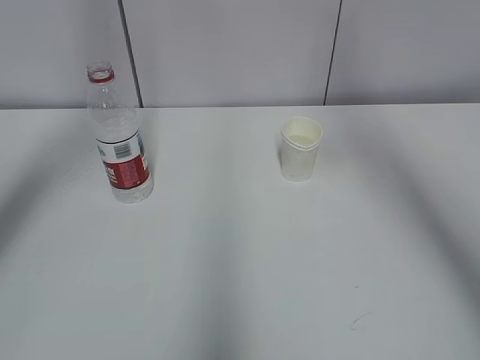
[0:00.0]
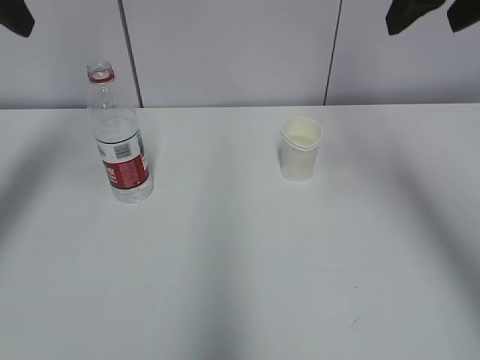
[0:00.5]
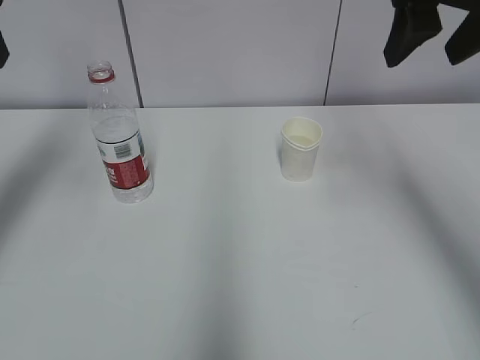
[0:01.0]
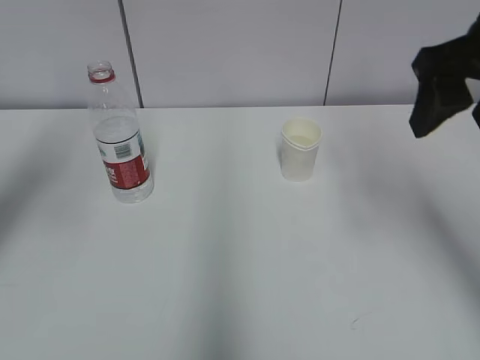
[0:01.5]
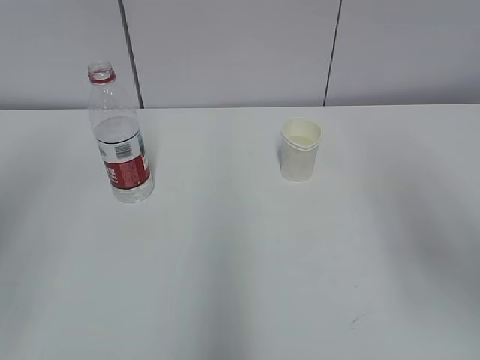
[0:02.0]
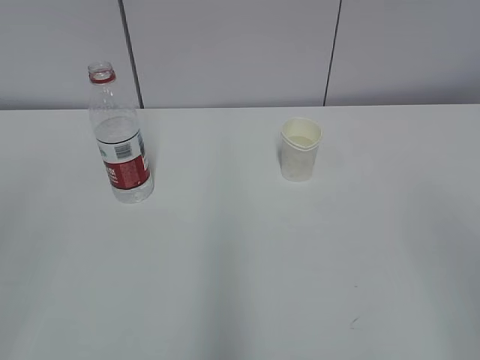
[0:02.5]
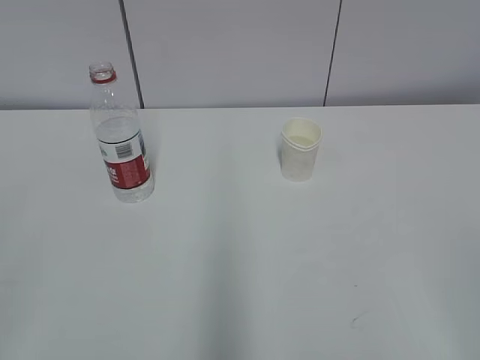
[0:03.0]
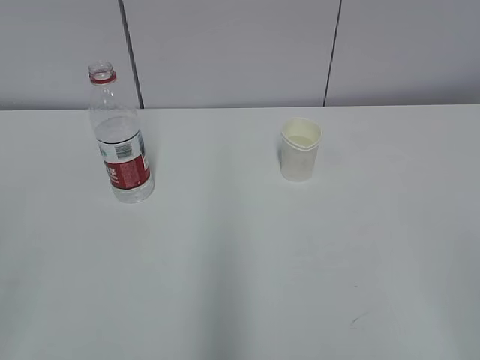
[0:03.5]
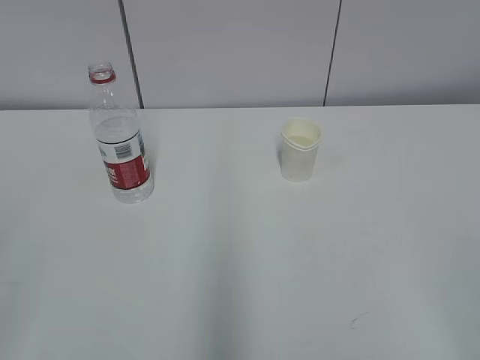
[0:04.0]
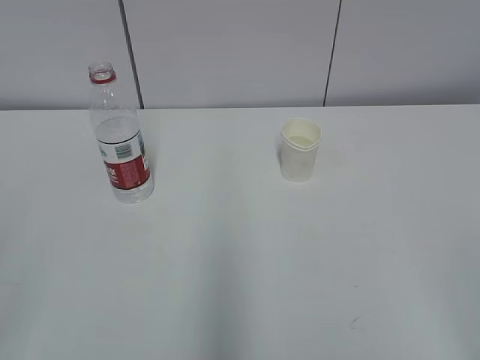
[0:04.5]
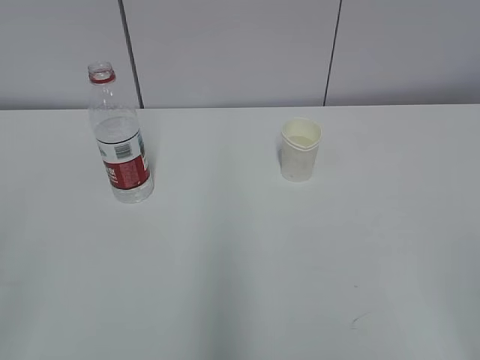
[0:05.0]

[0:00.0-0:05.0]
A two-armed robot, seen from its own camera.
0:00.0 to 0:02.5: The grippers both shift backward by about 30 cm.

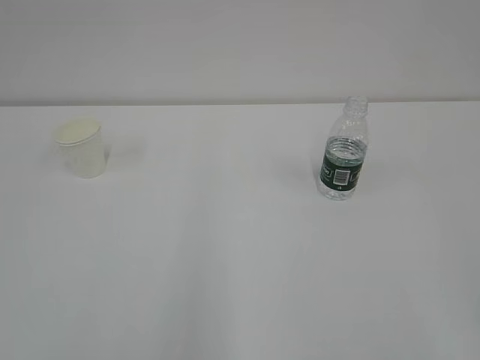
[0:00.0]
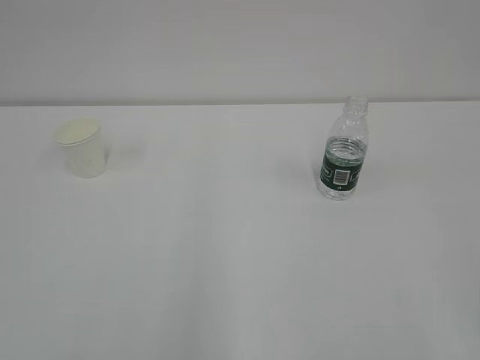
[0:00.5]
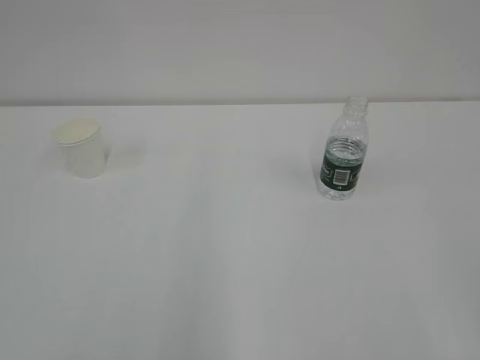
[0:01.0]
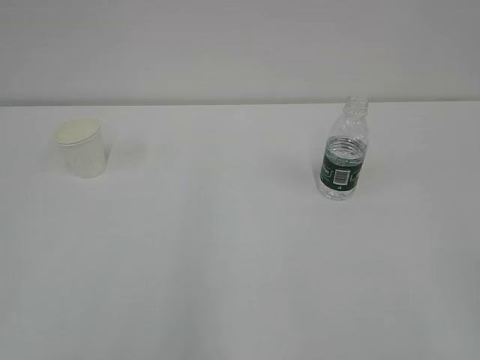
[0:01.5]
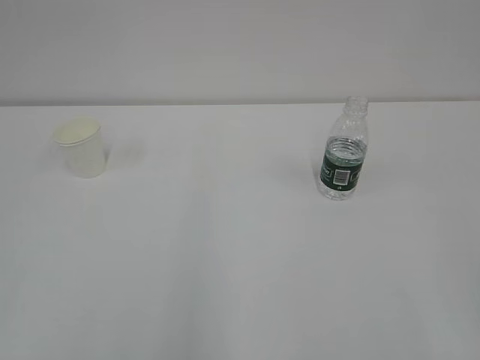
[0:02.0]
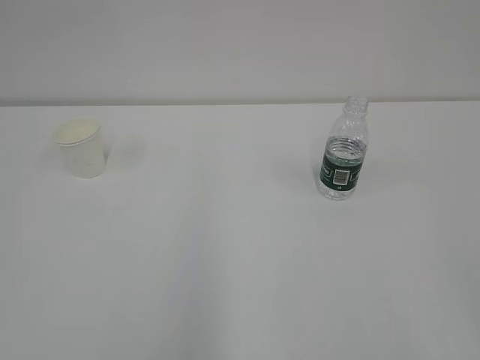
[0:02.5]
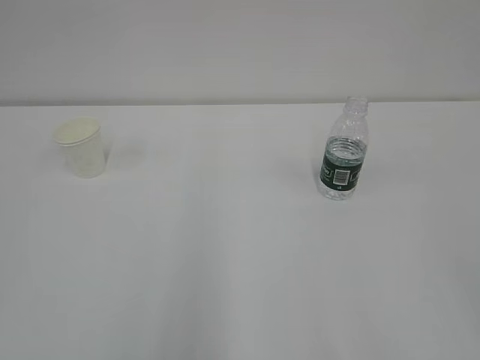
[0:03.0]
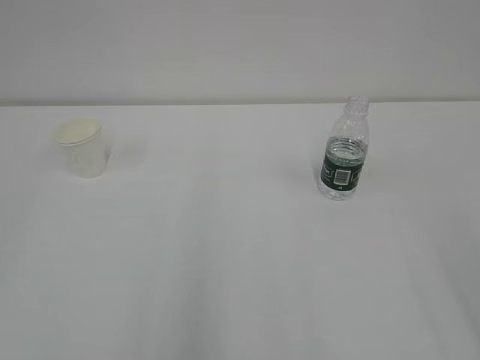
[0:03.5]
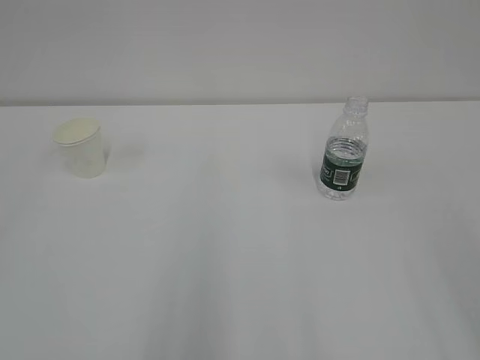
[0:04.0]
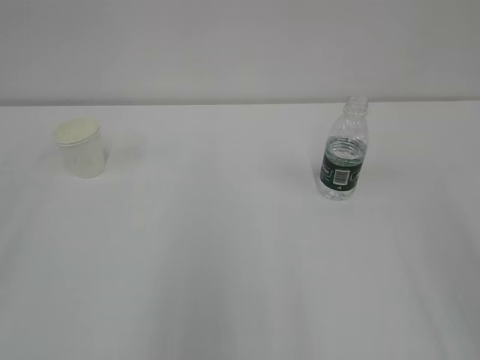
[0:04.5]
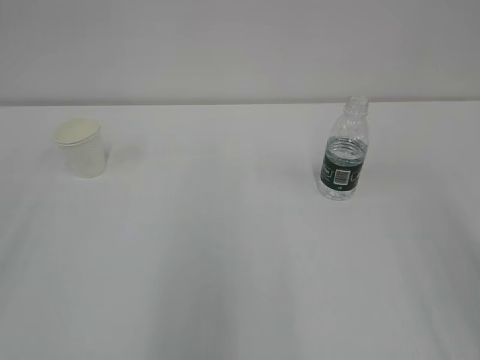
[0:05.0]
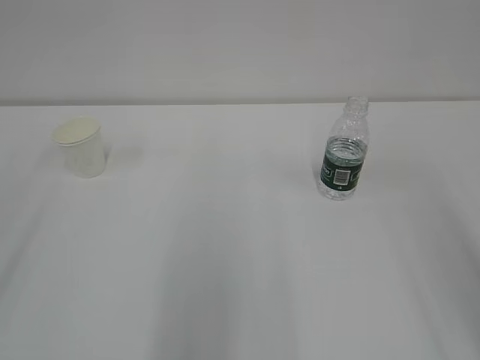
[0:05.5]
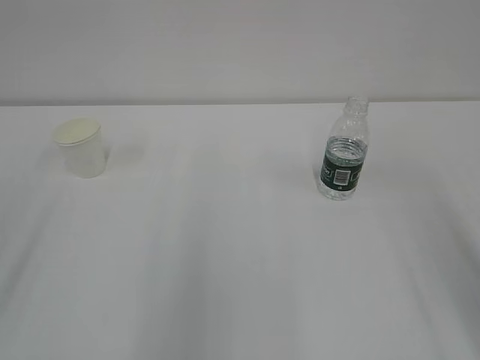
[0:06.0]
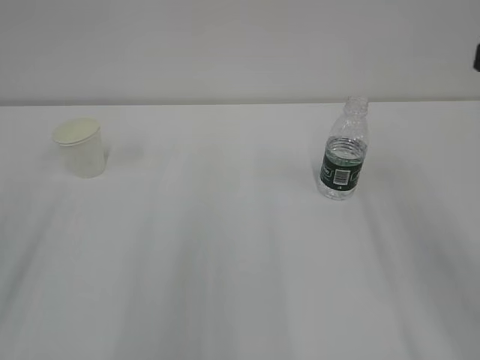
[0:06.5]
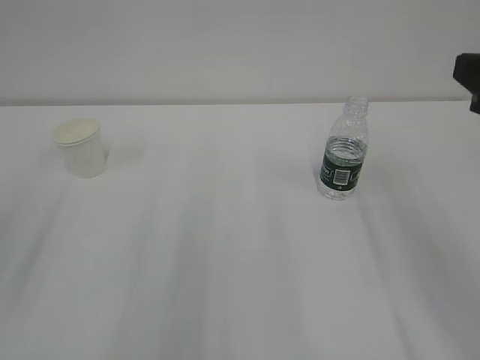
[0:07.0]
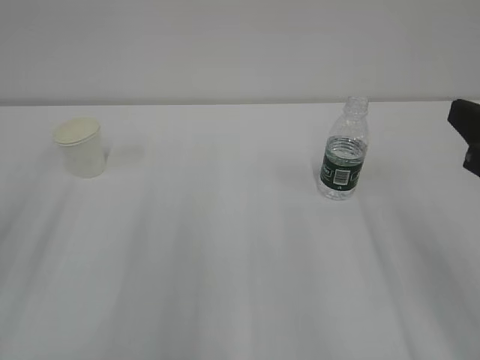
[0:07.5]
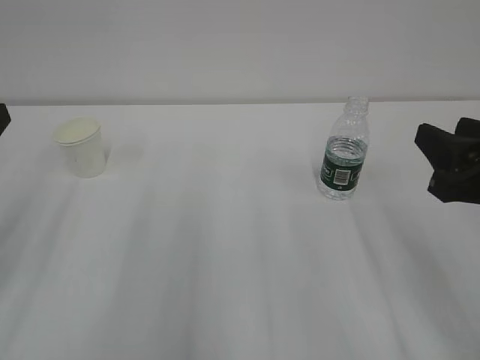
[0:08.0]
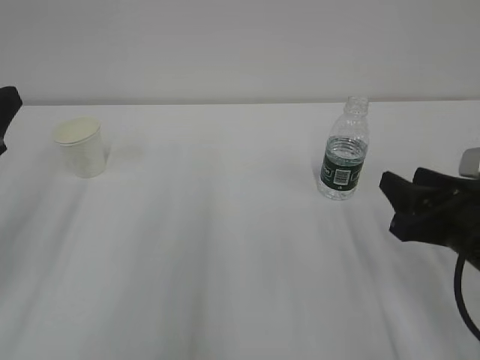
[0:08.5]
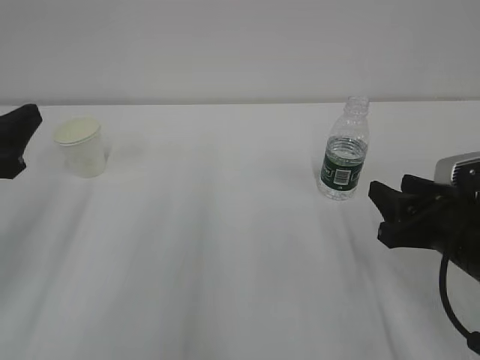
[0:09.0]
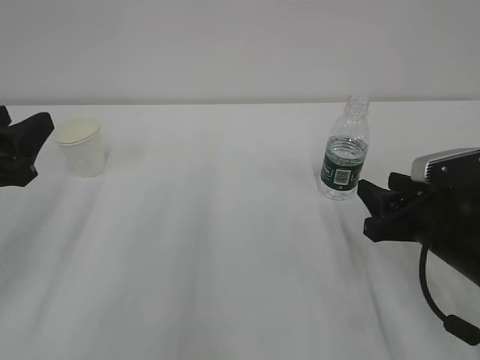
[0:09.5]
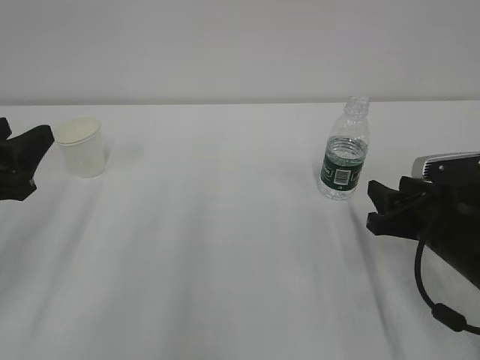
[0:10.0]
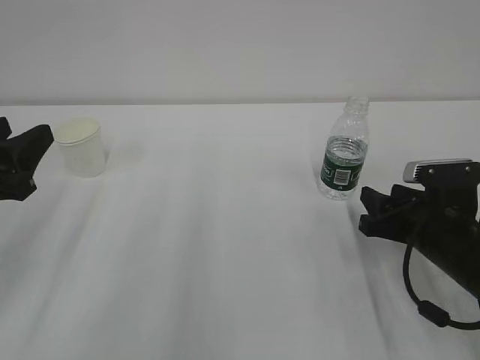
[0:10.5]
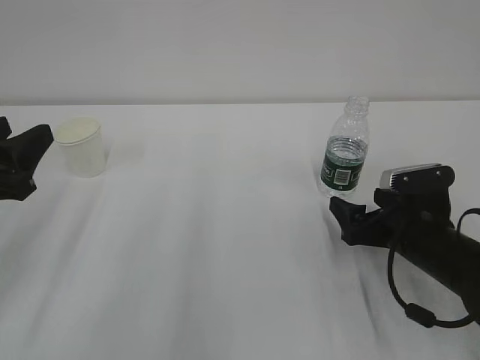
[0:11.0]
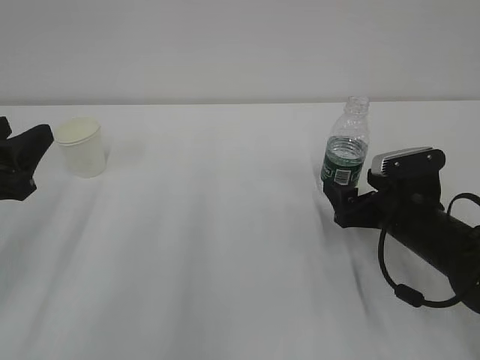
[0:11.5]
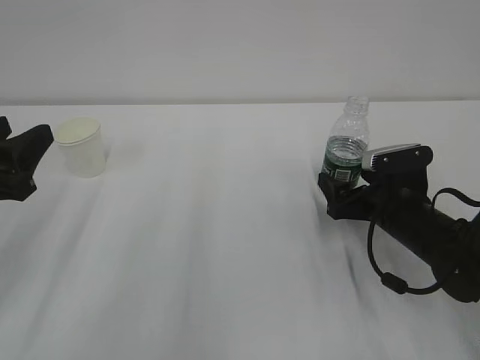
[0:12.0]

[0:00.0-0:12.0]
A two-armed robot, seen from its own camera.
0:06.0 to 0:08.0: The right gripper goes about 15 cm downward and forward.
0:08.0 to 0:10.0: The right gripper moves downward and forward, roughly 15 cm.
0:10.0 to 0:12.0: The right gripper heads forward, covering roughly 5 cm, and opens.

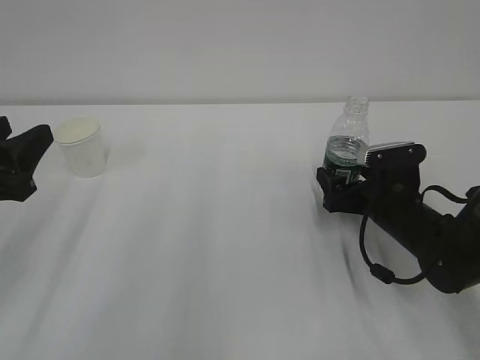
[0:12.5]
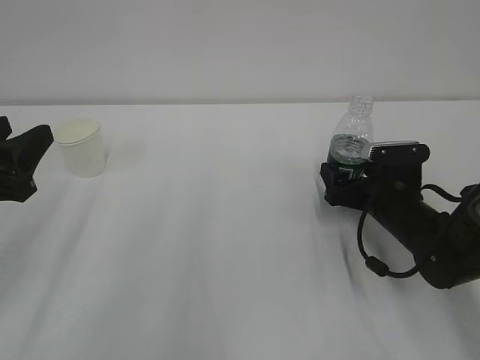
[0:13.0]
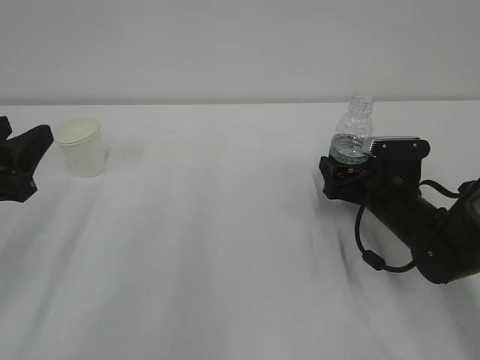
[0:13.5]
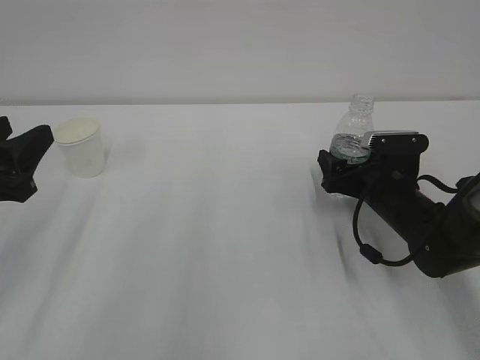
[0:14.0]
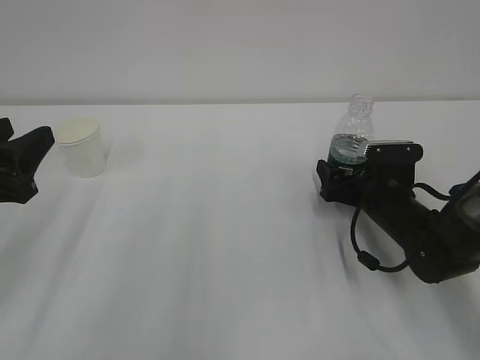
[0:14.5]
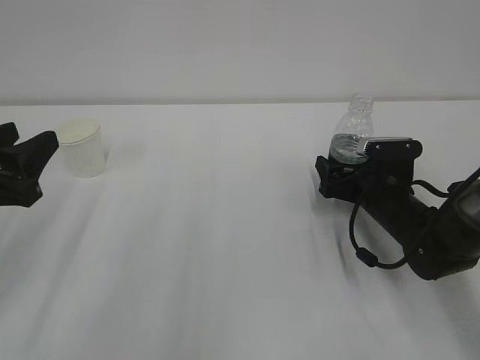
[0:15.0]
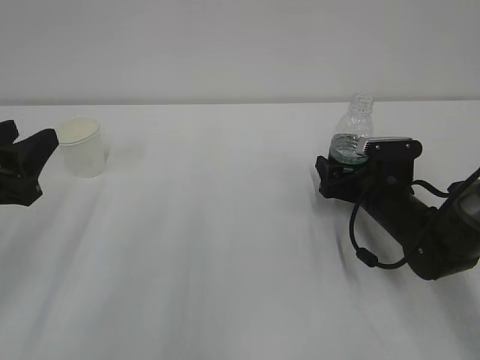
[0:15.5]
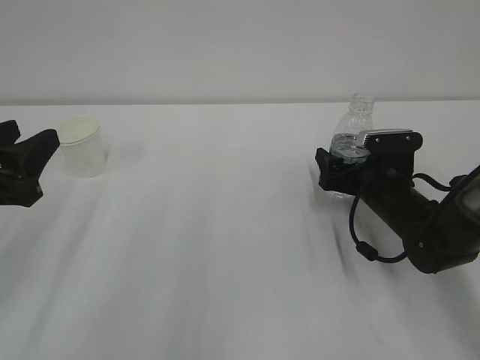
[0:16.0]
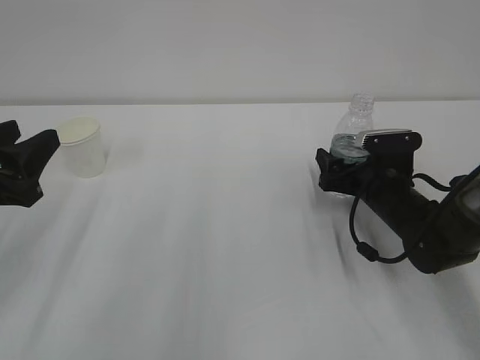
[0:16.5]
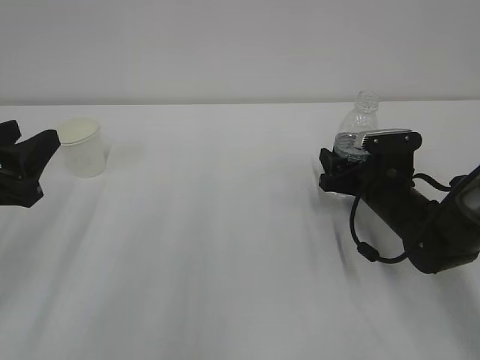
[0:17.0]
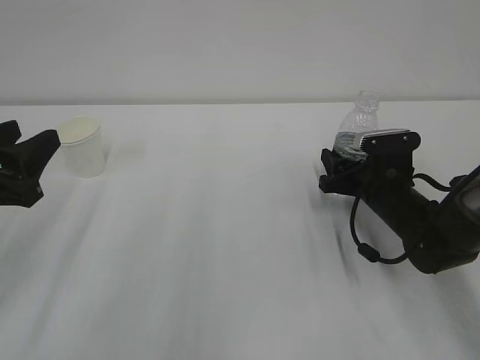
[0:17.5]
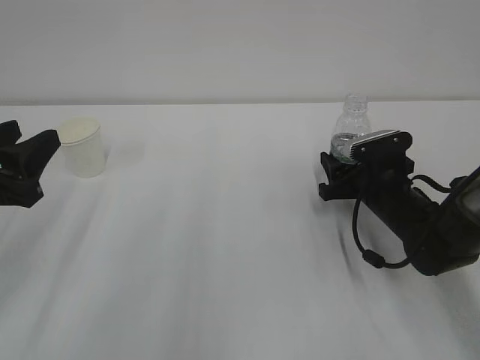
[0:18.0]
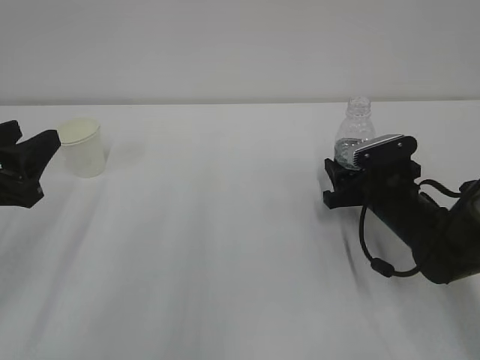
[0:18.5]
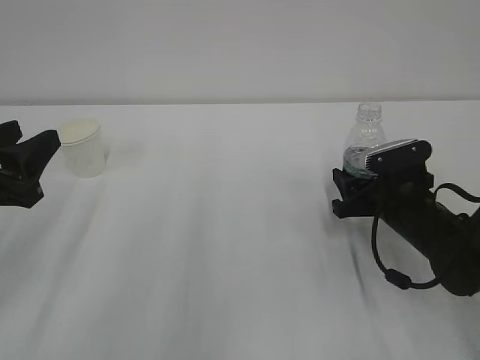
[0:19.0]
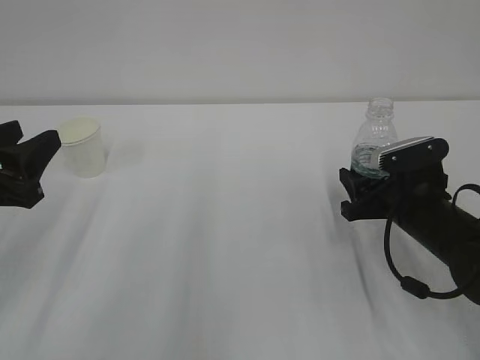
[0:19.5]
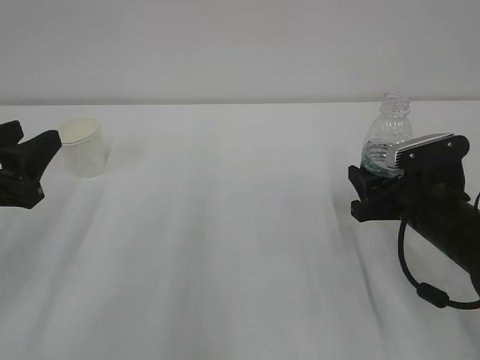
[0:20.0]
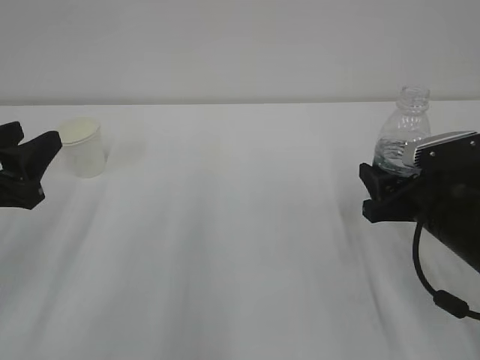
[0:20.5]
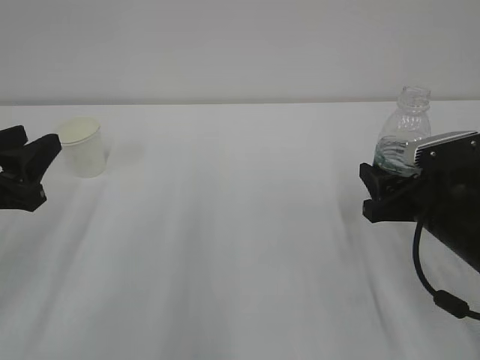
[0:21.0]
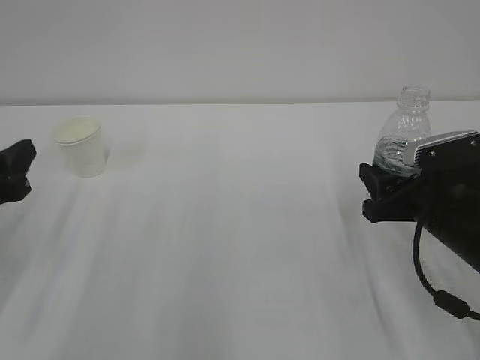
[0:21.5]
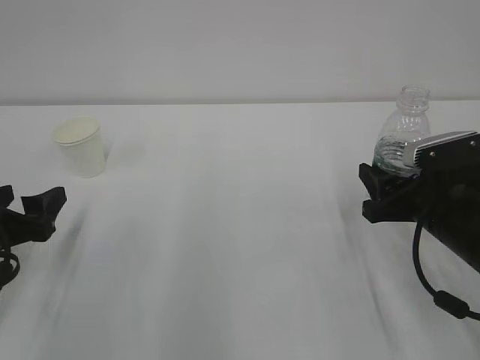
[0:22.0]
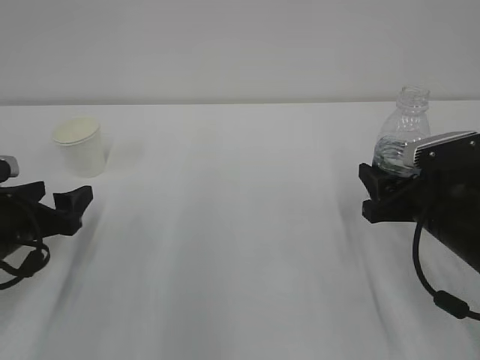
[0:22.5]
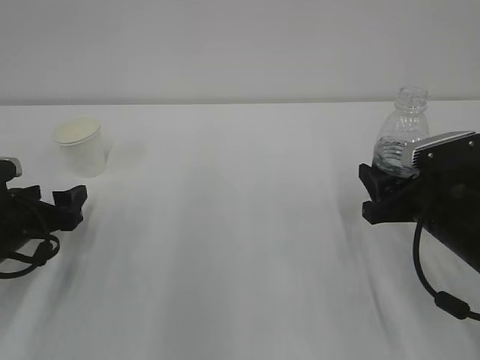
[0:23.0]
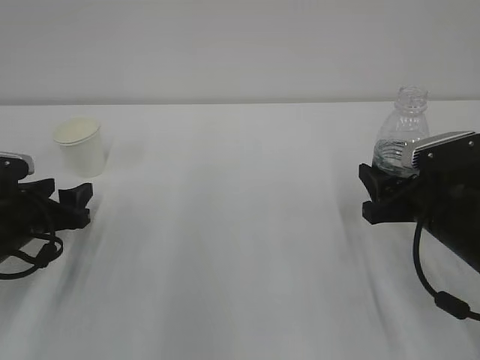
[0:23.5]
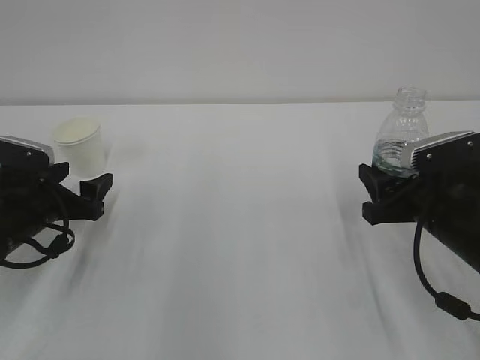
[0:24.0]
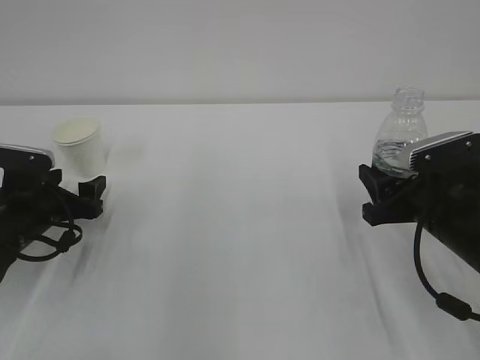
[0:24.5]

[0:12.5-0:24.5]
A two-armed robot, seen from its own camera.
0:12.5 to 0:16.5: The grippers stay close to where they were, moving slightly.
0:16.5 to 0:18.5: The right gripper closes.
0:18.5 to 0:20.5: The right gripper travels backward and upward by some 10 cm.
0:20.5 to 0:22.5: The left gripper goes roughly 10 cm downward, and opens up.
0:22.5 to 0:24.5: The left gripper shifts some 5 cm forward, and closes and opens again.
